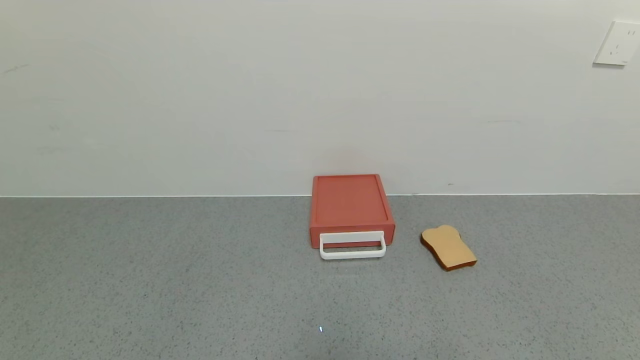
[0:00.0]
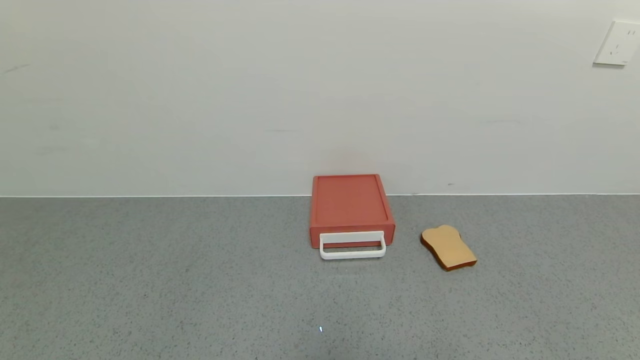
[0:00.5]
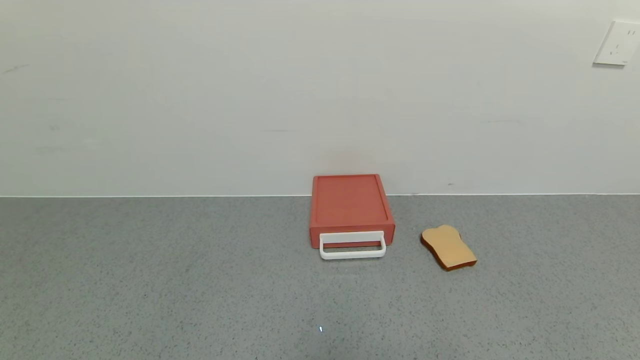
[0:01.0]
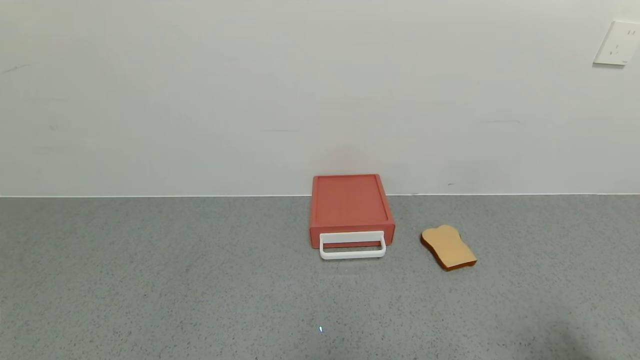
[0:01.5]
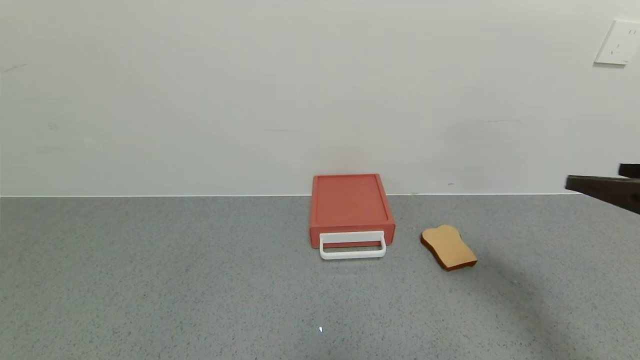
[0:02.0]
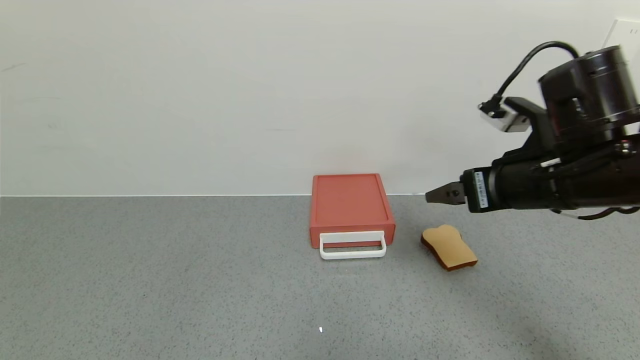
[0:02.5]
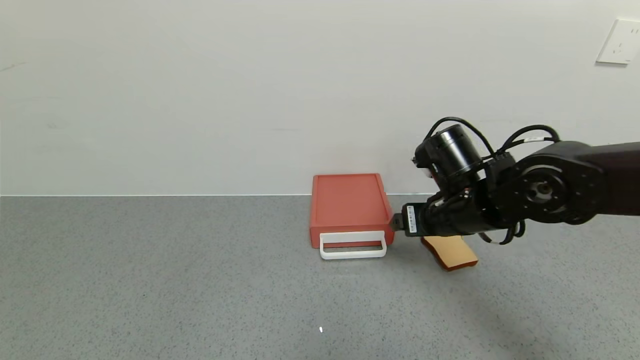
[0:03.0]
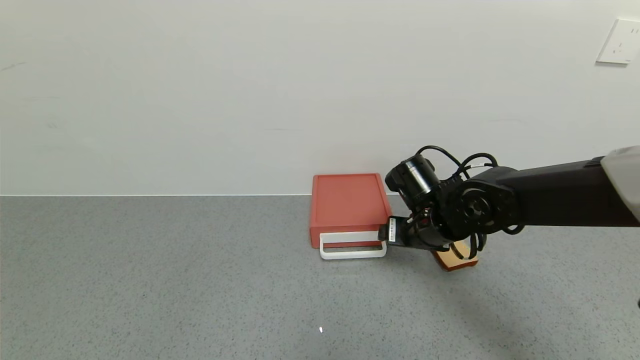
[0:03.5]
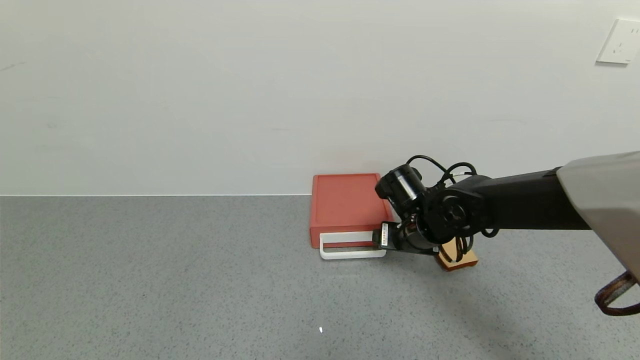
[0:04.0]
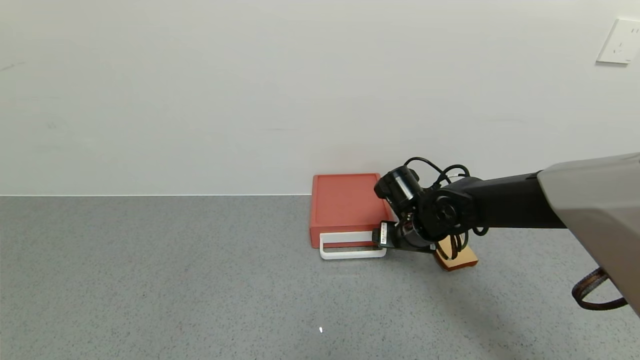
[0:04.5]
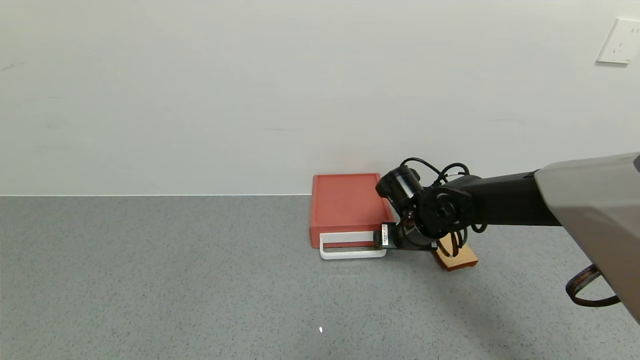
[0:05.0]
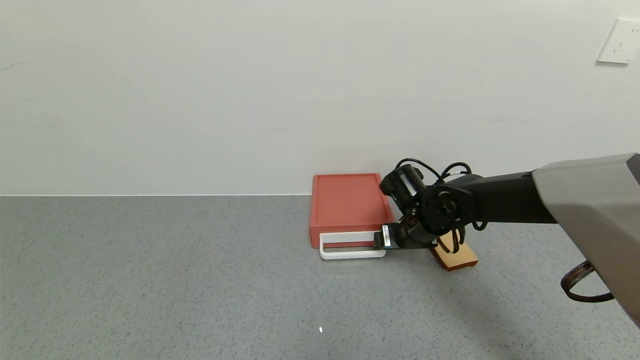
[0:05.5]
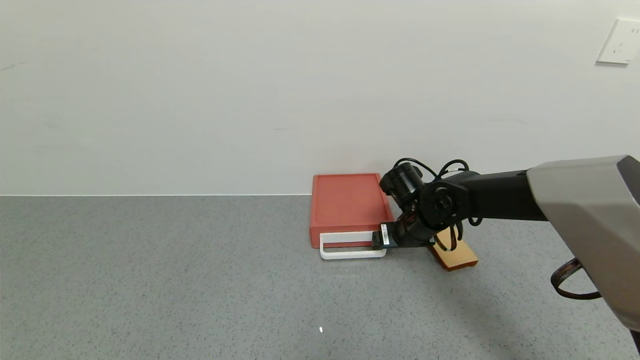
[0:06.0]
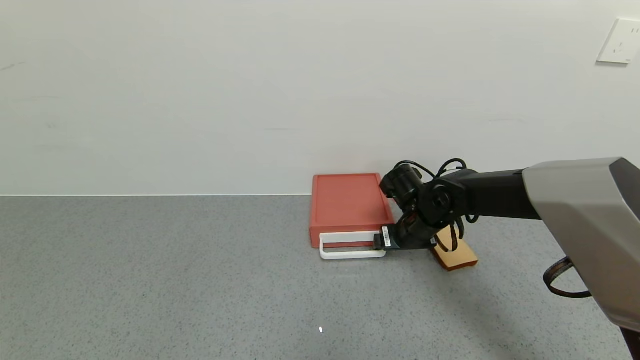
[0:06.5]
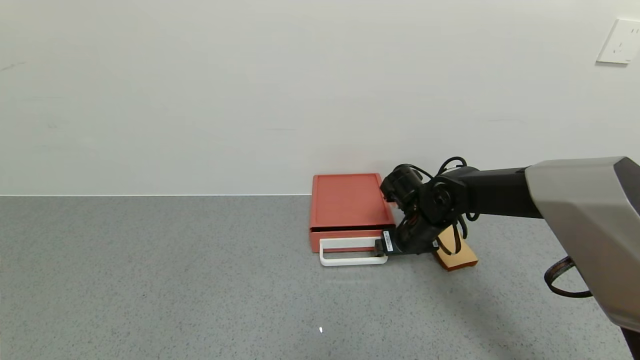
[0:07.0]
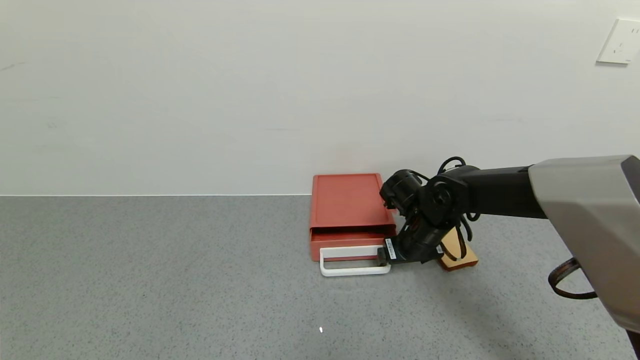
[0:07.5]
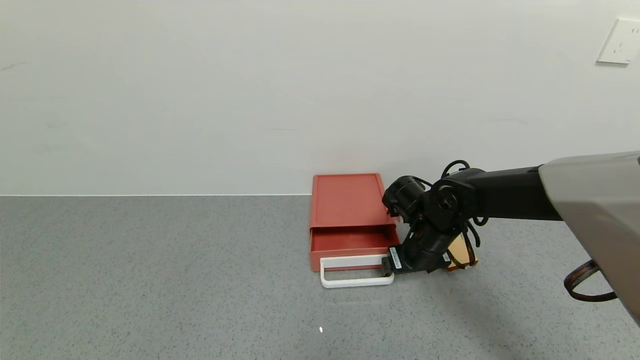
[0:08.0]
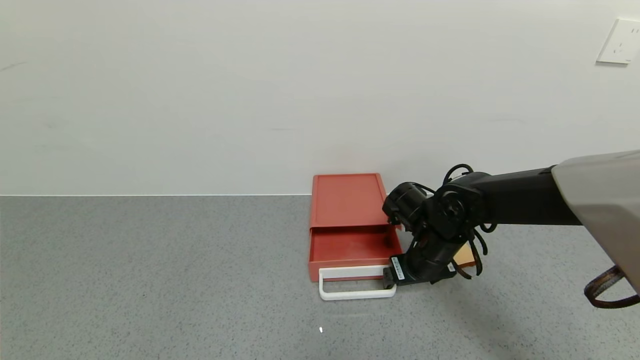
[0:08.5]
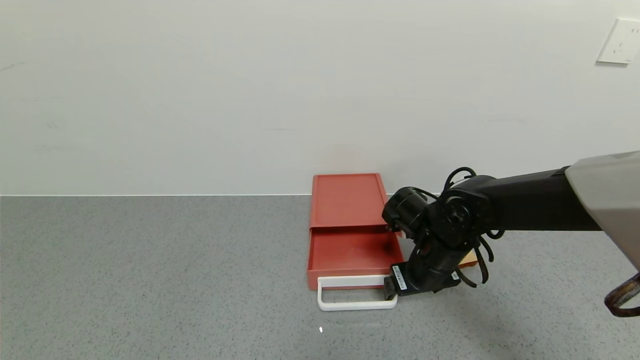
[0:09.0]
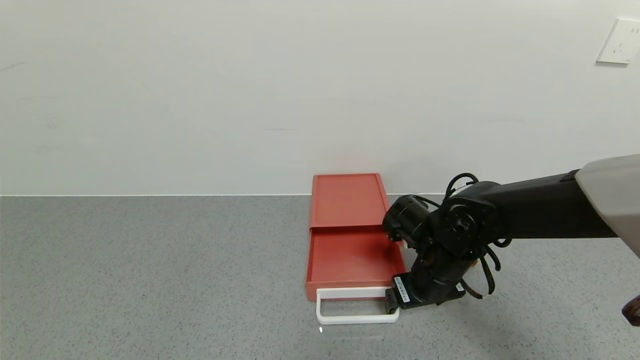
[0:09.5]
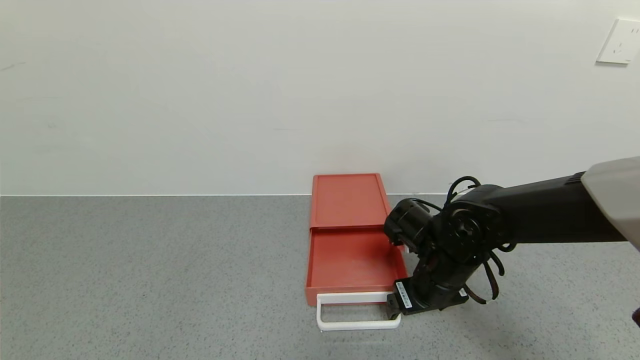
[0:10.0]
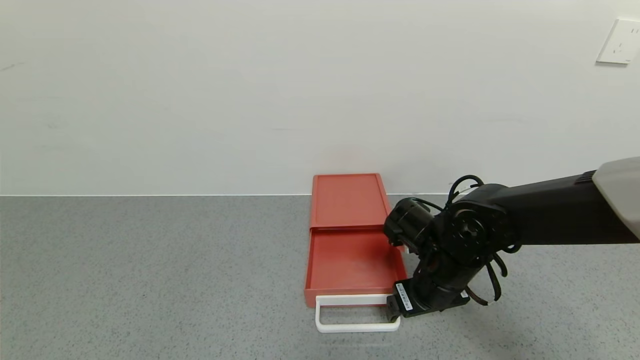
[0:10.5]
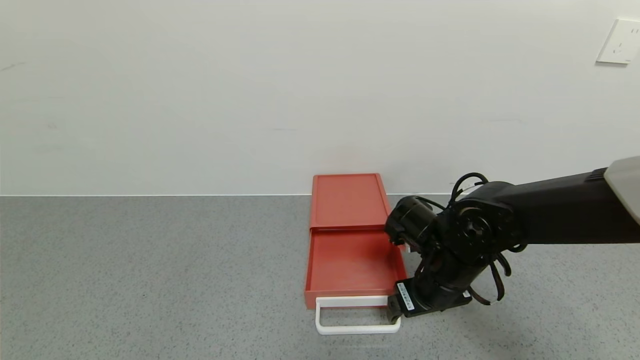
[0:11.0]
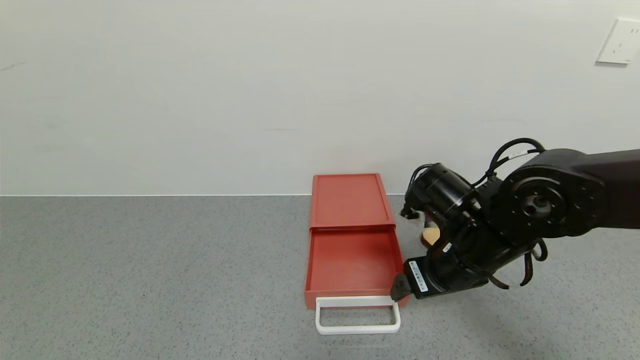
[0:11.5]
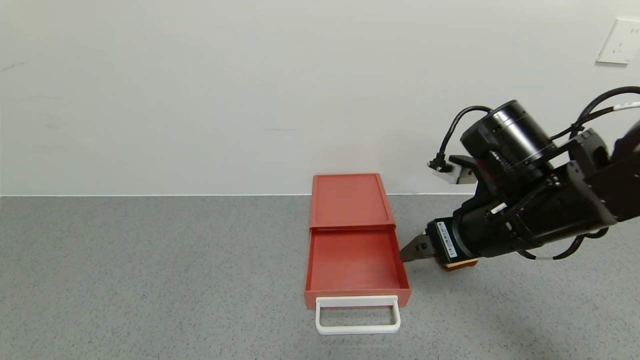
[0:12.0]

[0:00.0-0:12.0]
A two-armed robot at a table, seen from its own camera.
Task of the whole recording: use the gripper to open the drawer and close the red drawer.
Step, 0:00.0 to 0:11.5: Open the red drawer with the right gripper.
0:00.0 to 0:02.0: The right gripper moves forward and upward, about 25 cm.
0:02.0 to 0:04.0: The right gripper moves to the left, forward and downward, approximately 30 cm.
0:04.0 to 0:06.0: The grippers make only small movements.
0:06.0 to 0:08.0: The grippers make only small movements.
0:08.0 to 0:10.0: The right gripper is displaced backward by about 5 cm.
0:10.0 to 0:12.0: The right gripper heads upward, covering some 15 cm.

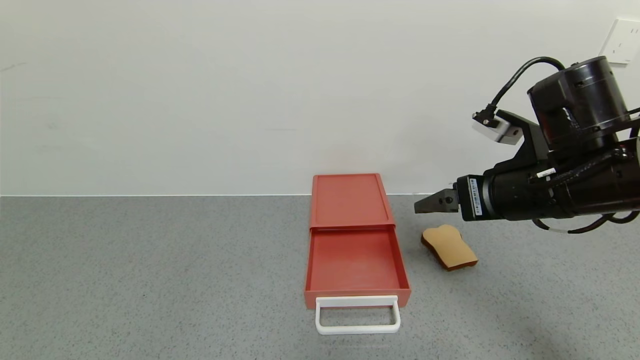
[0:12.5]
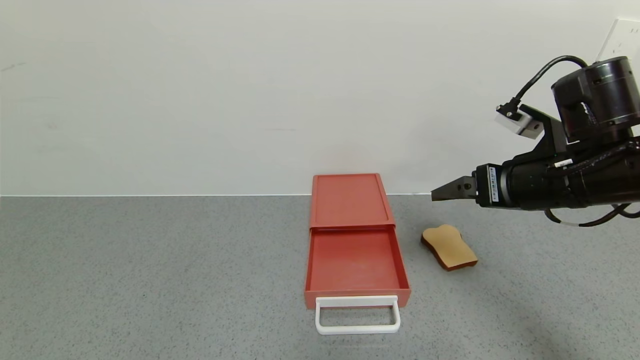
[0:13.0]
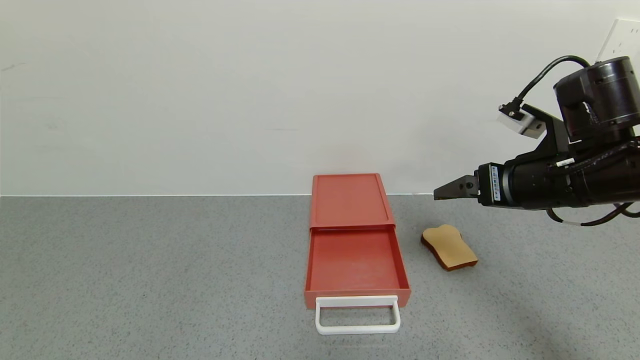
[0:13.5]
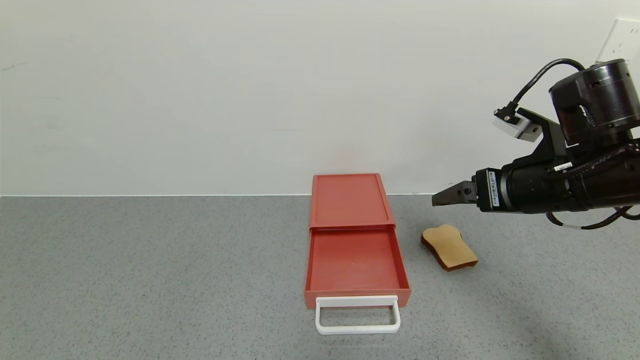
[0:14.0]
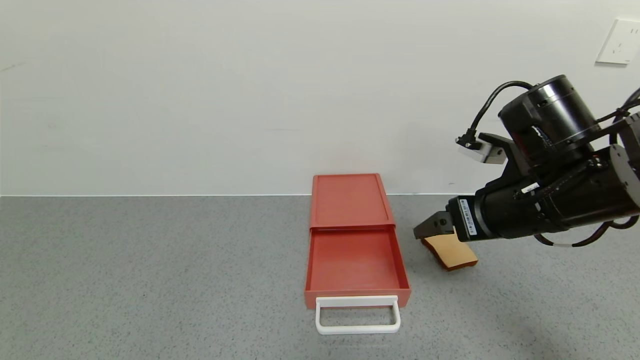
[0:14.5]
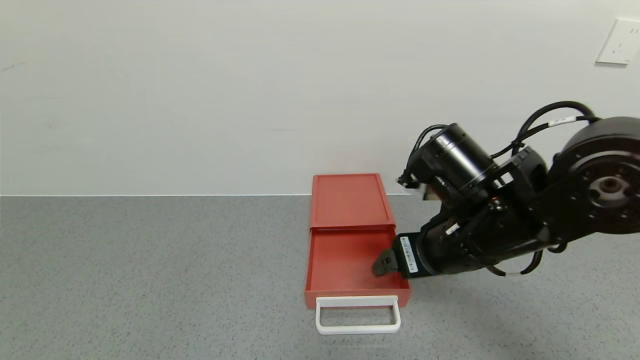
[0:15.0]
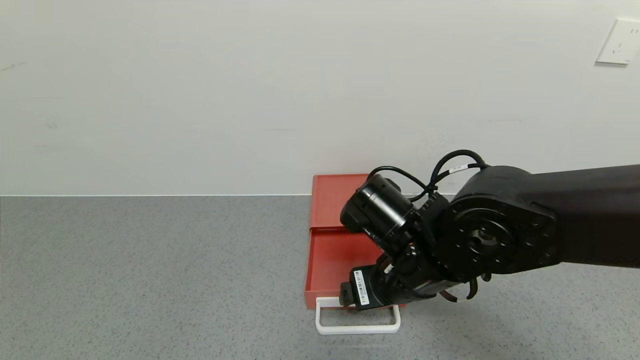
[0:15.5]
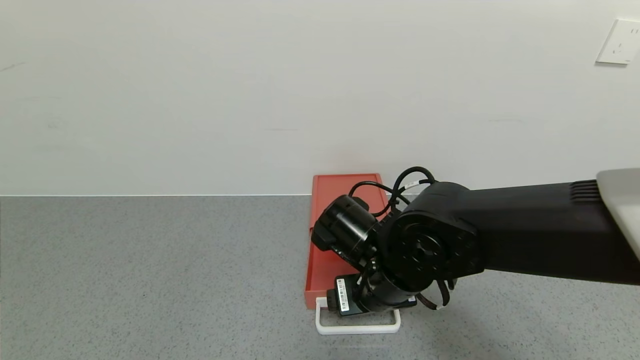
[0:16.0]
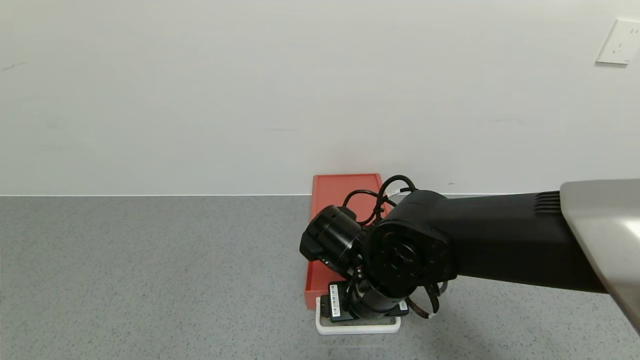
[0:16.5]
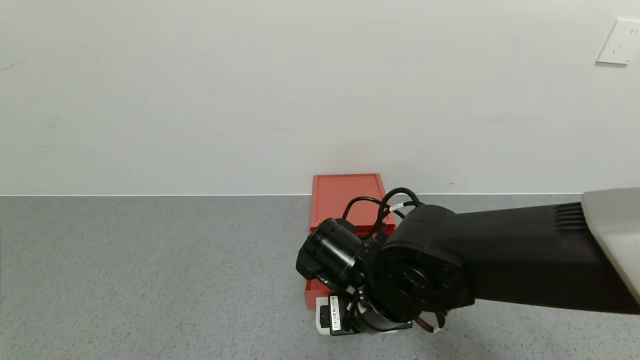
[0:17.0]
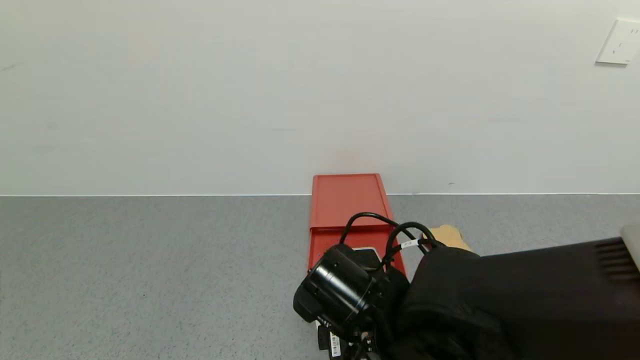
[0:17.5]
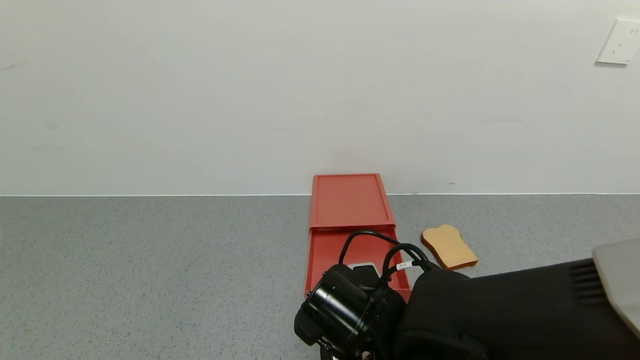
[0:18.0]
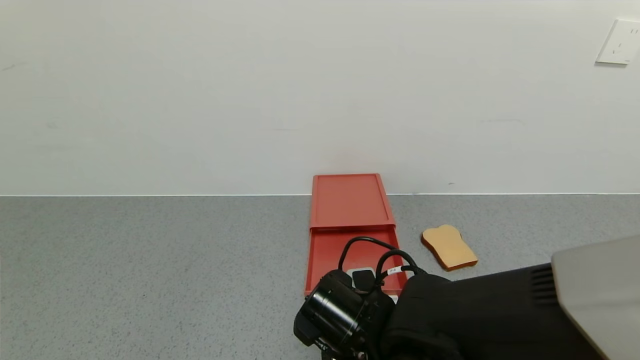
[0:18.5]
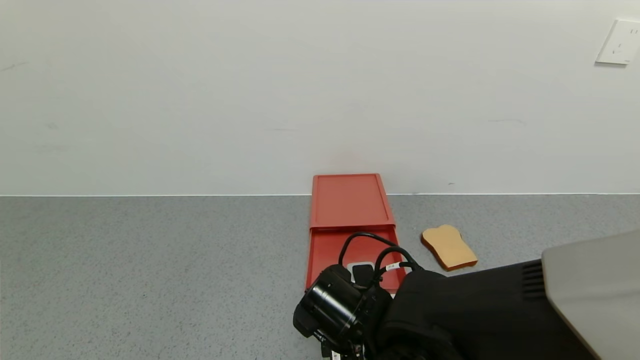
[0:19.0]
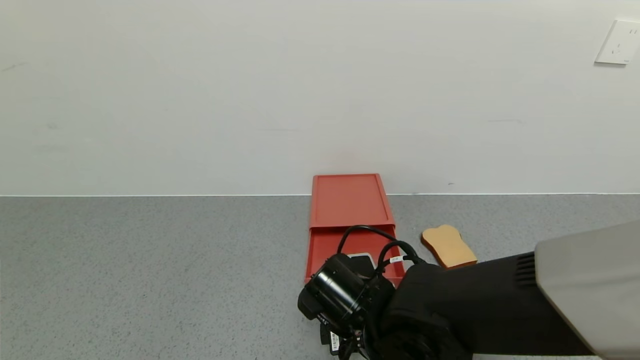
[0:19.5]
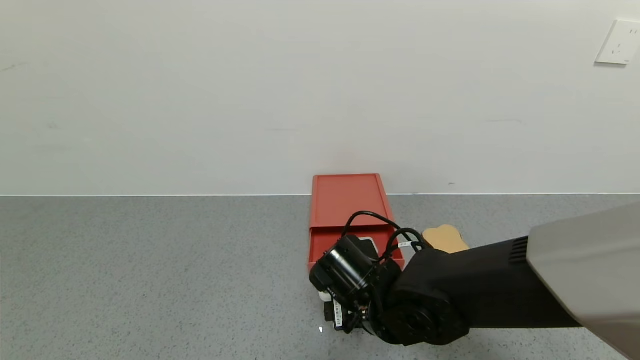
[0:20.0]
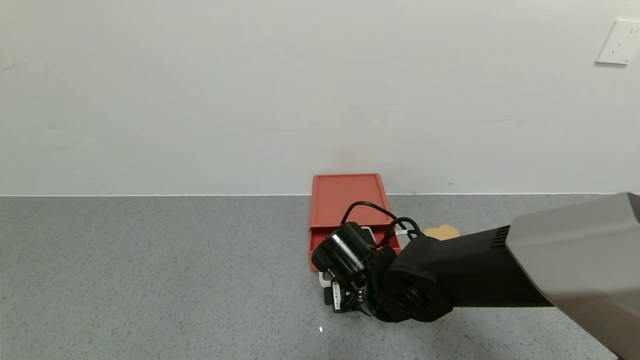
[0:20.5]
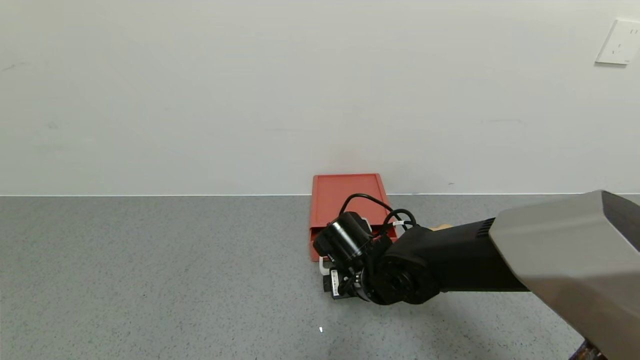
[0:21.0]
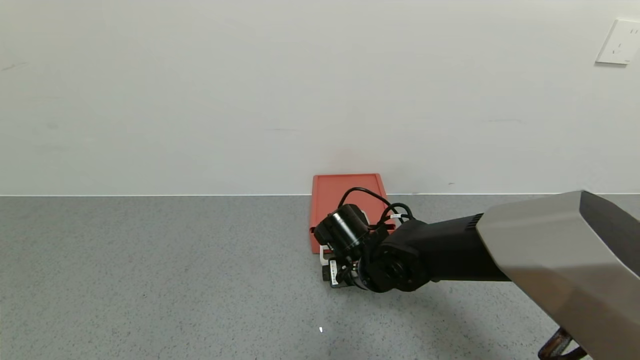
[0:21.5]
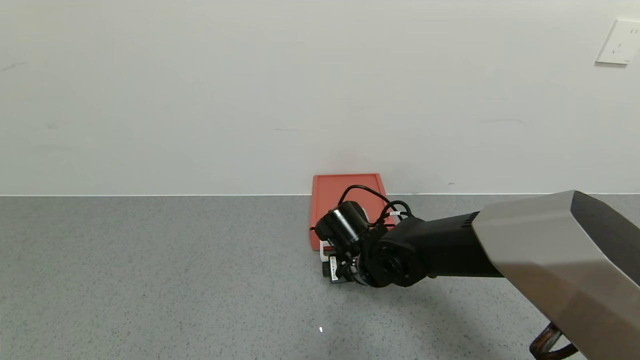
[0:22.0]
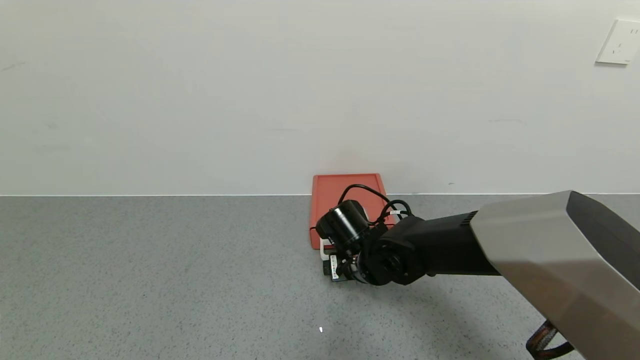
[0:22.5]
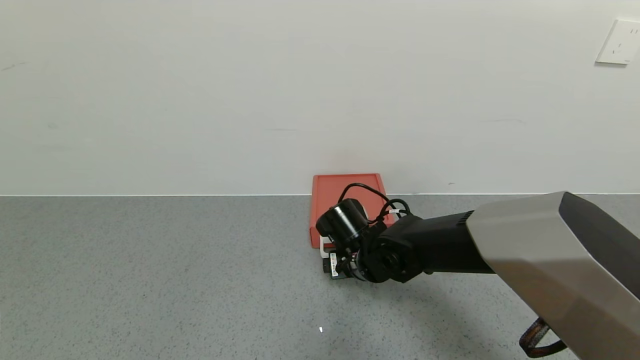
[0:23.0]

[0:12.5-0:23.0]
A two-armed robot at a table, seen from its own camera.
Task of the whole recording: use the gripper to open the drawer and close the red drawer.
0:12.5 to 0:14.5: There are only small adjustments of the grippers.
0:14.5 to 0:16.5: The right gripper goes about 20 cm to the left and downward.
0:16.5 to 0:19.0: The right gripper ends up roughly 5 cm from where it was.
0:19.0 to 0:21.0: The right gripper heads forward, covering about 10 cm.
0:21.0 to 0:23.0: There are only small adjustments of the grippers.
